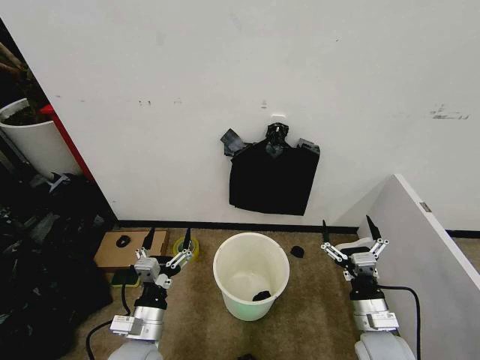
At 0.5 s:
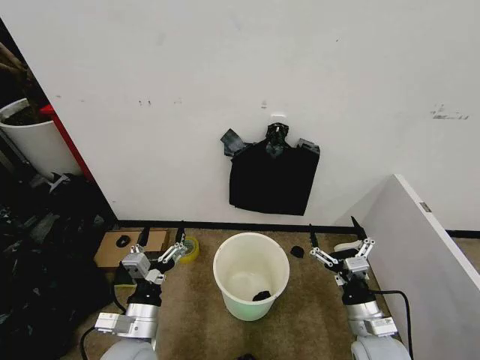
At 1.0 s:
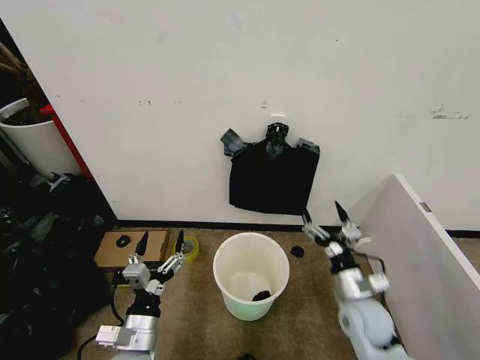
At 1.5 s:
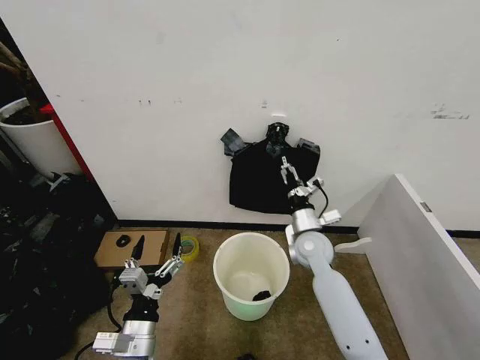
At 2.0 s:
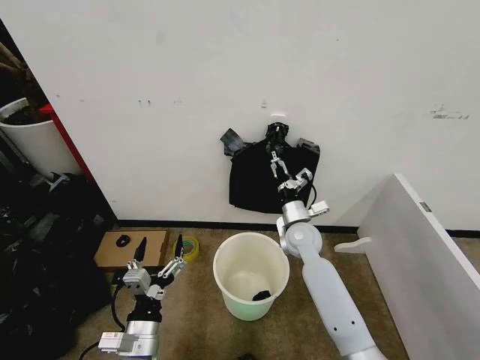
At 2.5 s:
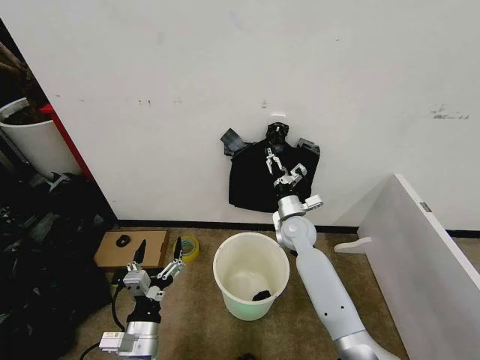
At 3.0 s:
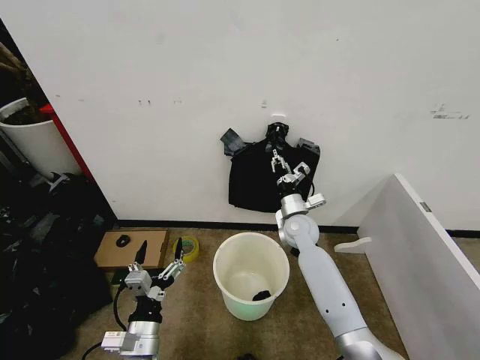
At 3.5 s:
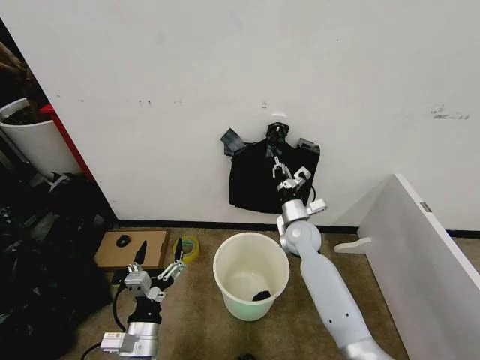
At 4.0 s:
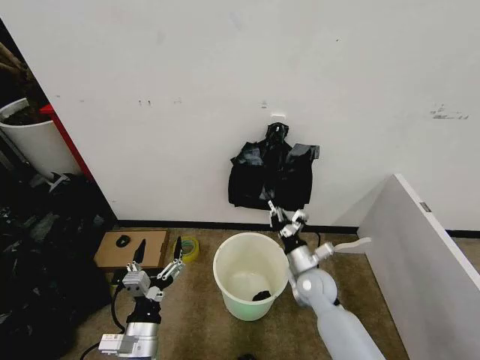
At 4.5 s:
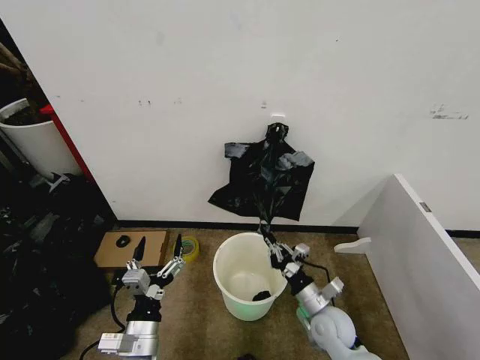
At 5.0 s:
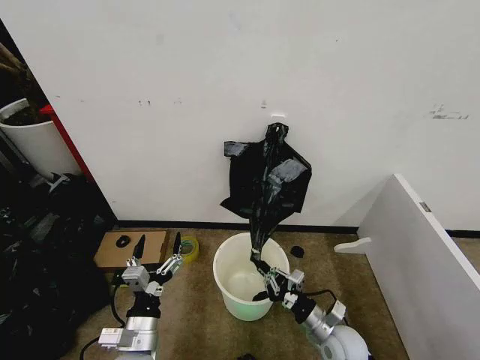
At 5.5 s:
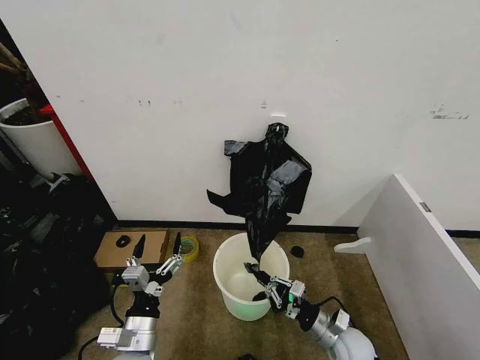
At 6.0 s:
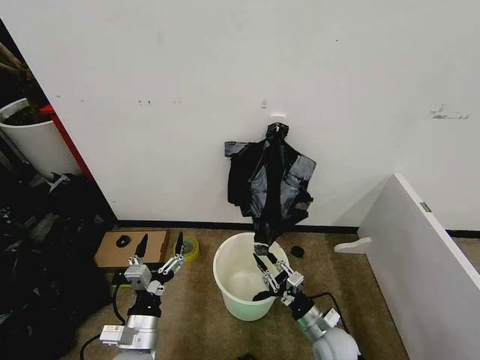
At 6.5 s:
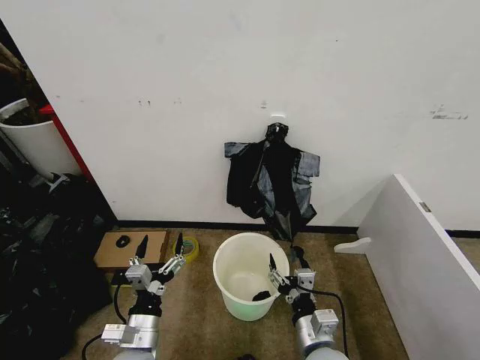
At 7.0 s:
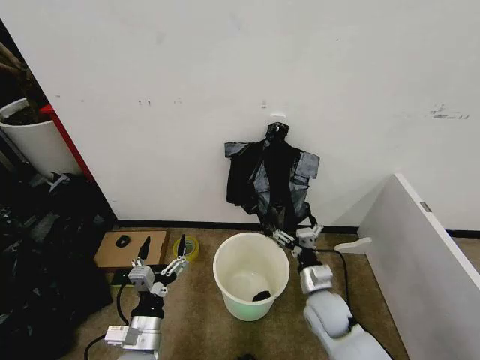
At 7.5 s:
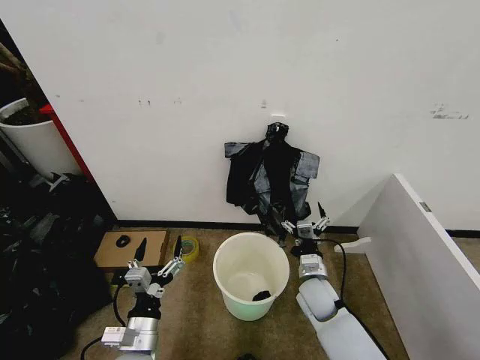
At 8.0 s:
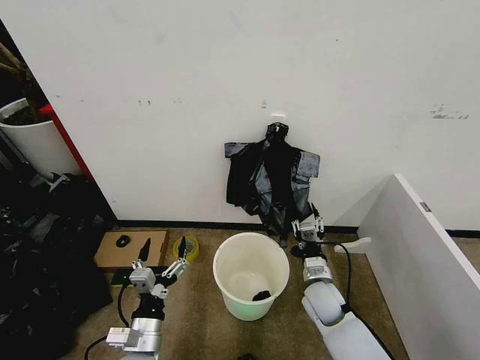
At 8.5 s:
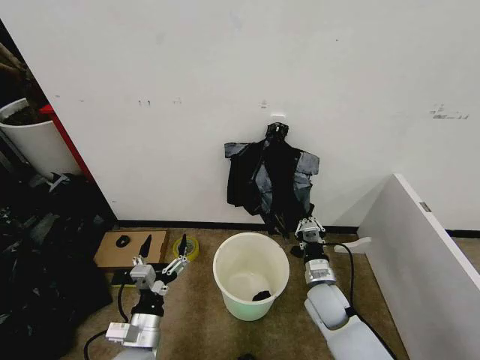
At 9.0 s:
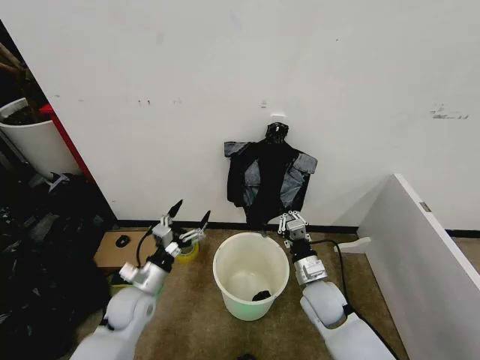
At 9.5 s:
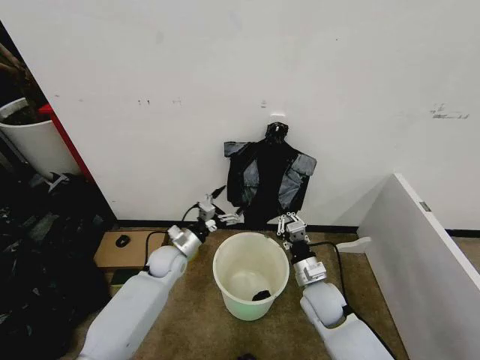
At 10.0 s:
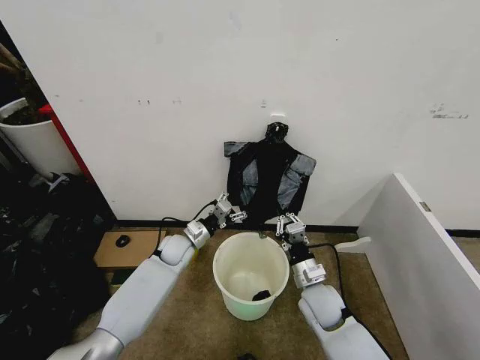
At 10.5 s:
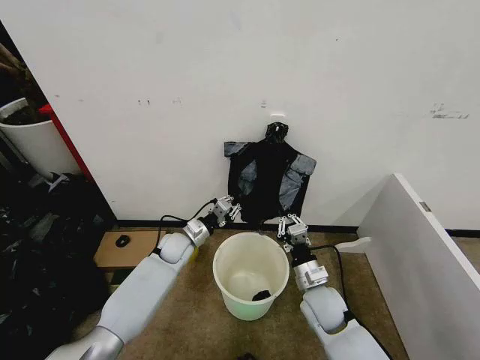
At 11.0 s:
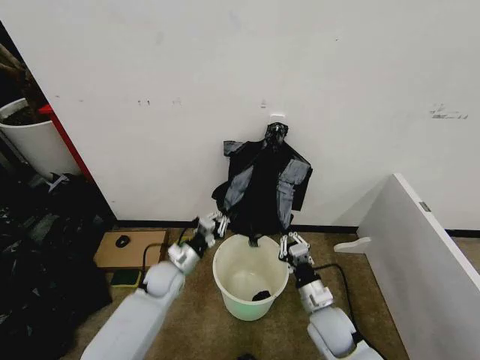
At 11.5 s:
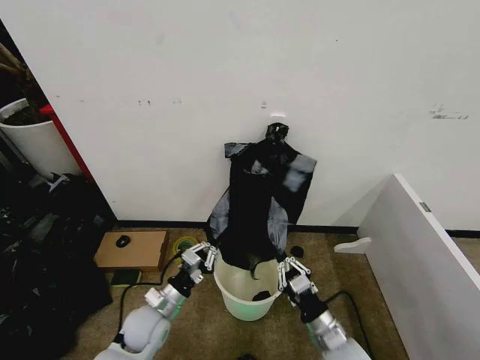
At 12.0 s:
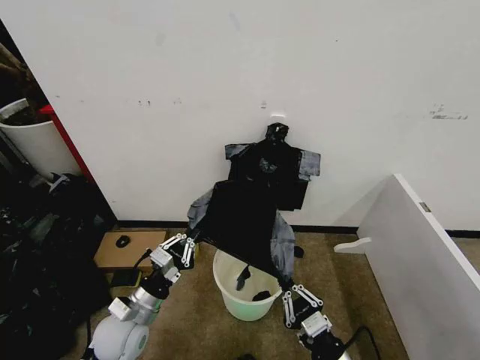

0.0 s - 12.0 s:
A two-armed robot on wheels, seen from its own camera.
Task of the whole recording: Place the garbage bag over the trash bin.
2.0 s - 4.0 s: The right gripper is displaced backward and downward by roughly 10 cm, and closes its fingers.
4.0 s - 6.0 s: The right gripper moves backward and downward, roughly 15 cm.
6.0 s - 8.0 s: The right gripper shifts some 10 cm forward and upward, and opens, then closes once more.
8.0 s - 10.0 s: The right gripper closes. The left gripper heads forward, covering some 30 cm.
10.0 s - 12.0 s: Both grippers move backward, some 20 cm. The left gripper closes up.

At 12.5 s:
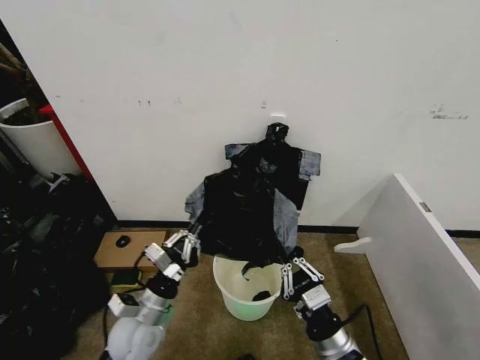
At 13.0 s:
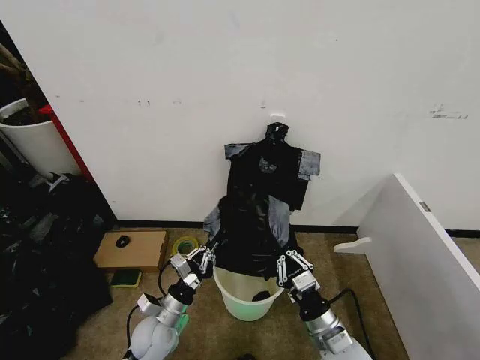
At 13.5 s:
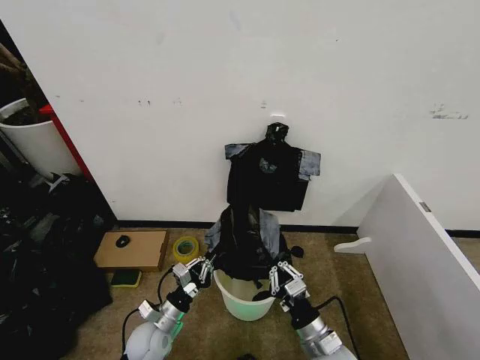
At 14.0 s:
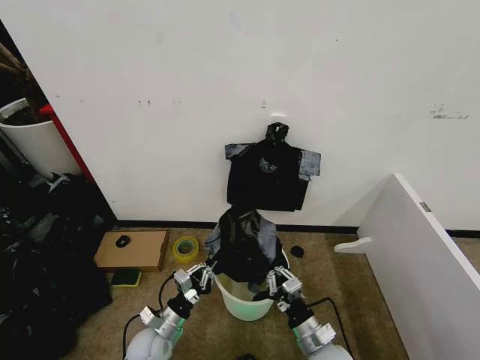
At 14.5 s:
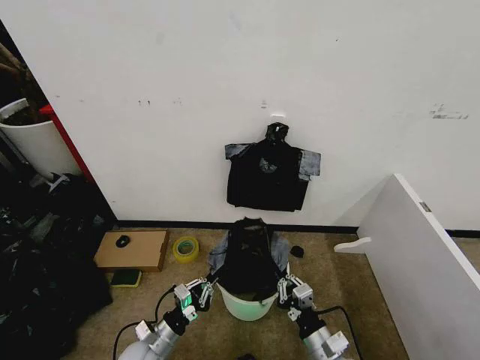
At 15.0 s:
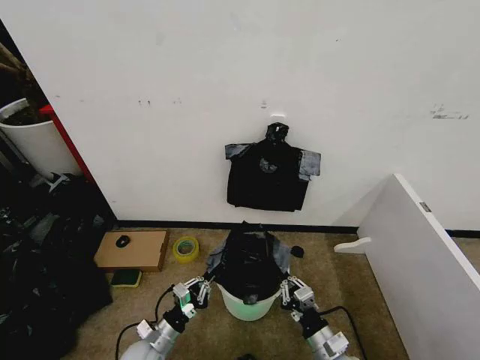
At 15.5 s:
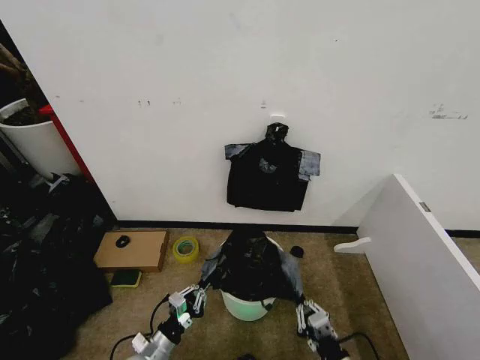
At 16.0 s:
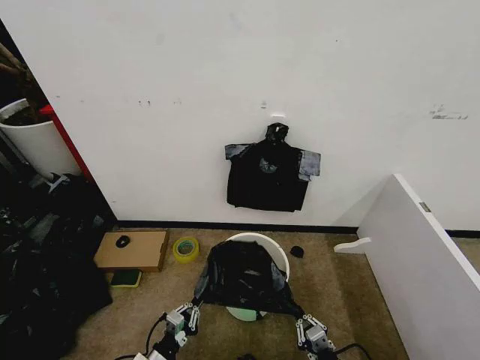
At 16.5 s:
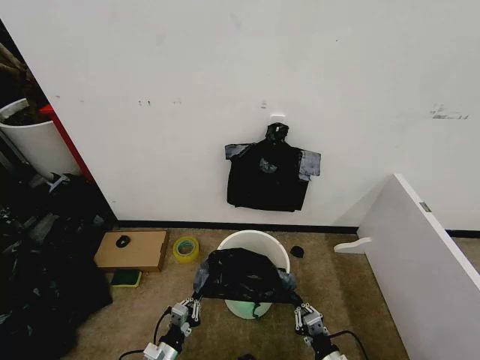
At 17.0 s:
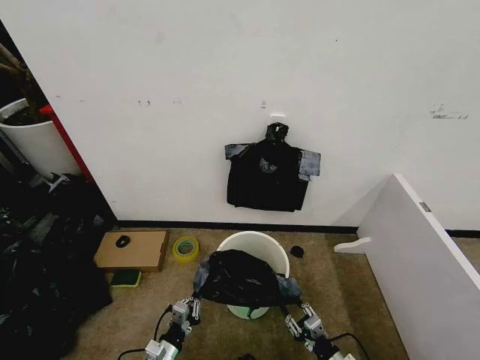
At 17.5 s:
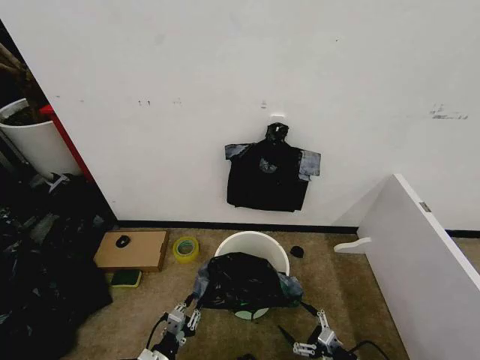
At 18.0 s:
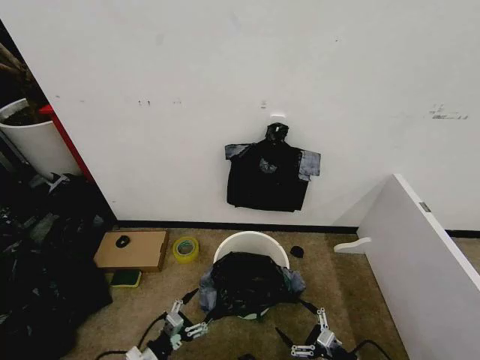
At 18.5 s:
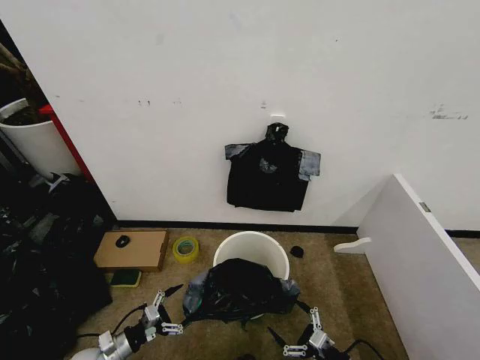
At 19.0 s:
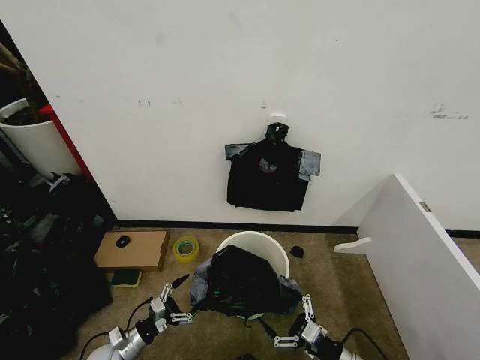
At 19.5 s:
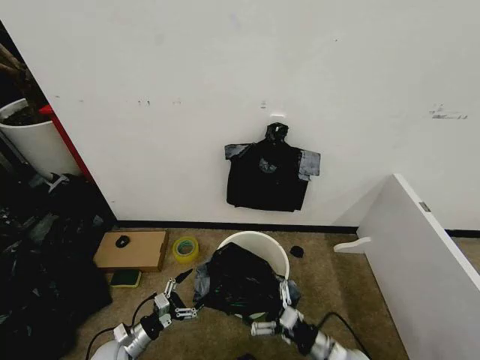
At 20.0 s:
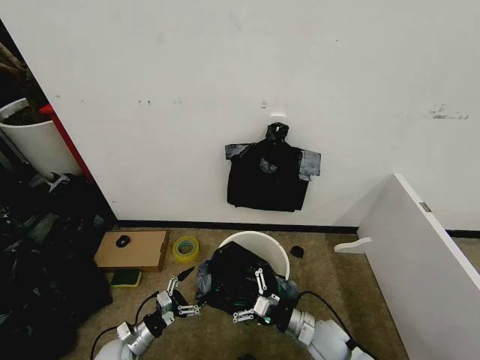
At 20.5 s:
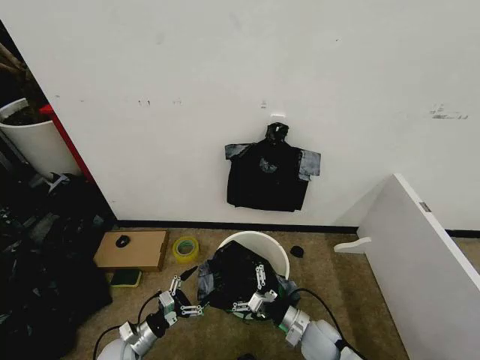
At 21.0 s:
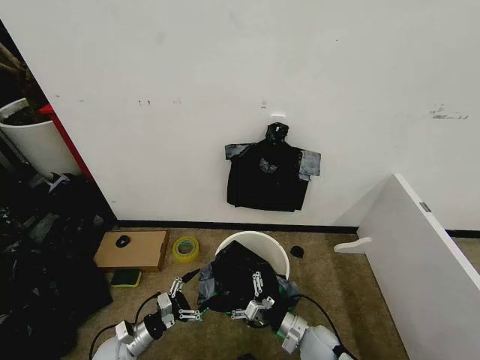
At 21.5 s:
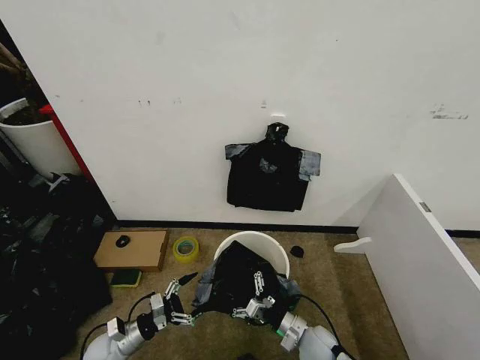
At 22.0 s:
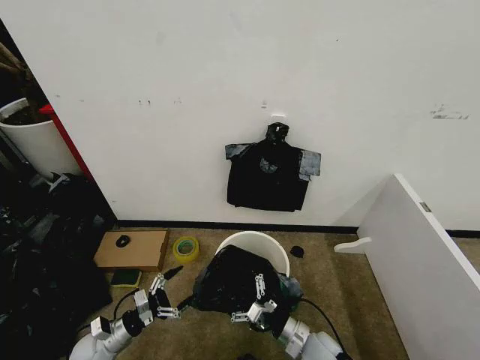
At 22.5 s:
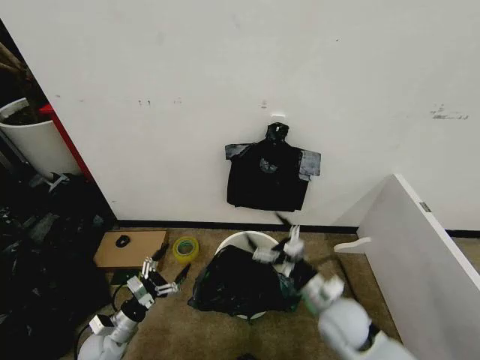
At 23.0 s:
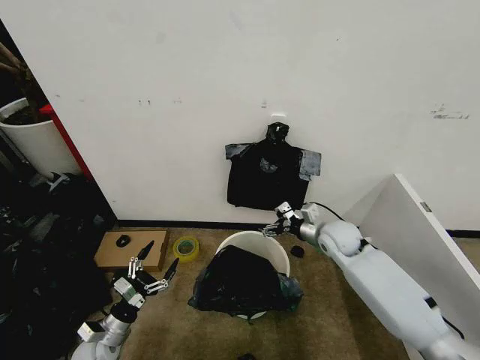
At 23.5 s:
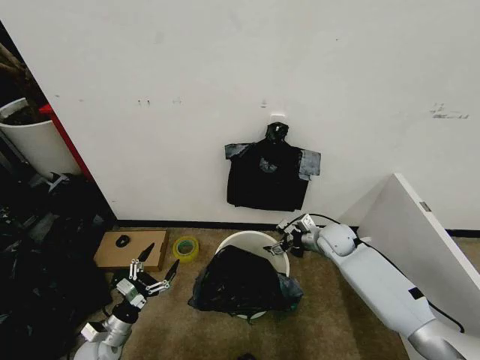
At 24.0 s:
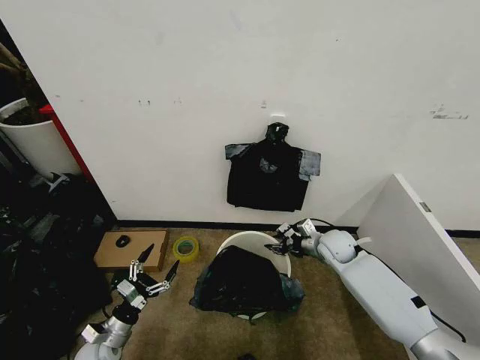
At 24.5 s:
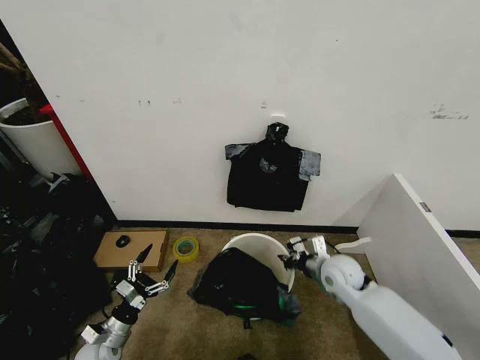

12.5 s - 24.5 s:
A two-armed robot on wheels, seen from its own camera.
Task of the whole recording: Place the garbage bag over the trash bin.
12.5 s - 14.5 s: The left gripper shifts some 15 cm downward; the right gripper travels downward by roughly 10 cm.
14.5 s - 16.5 s: The left gripper heads downward and backward, covering approximately 10 cm, while the right gripper is displaced downward and to the right by roughly 10 cm.
16.5 s - 18.5 s: The left gripper is displaced to the left by about 15 cm, and opens, while the right gripper ends up approximately 5 cm from where it was, and opens up.
18.5 s - 20.5 s: The left gripper travels to the right by approximately 5 cm, while the right gripper is displaced to the left and forward by roughly 15 cm.
20.5 s - 22.5 s: The left gripper moves some 5 cm; the right gripper shifts roughly 10 cm upward.
22.5 s - 24.5 s: The right gripper shifts approximately 10 cm forward, and closes up.

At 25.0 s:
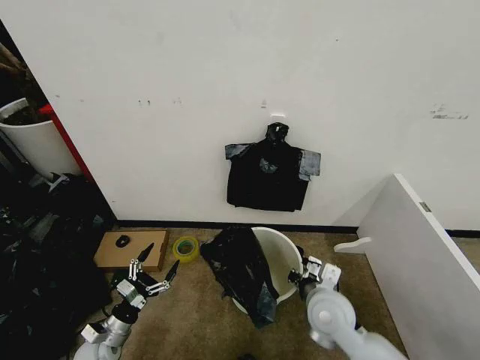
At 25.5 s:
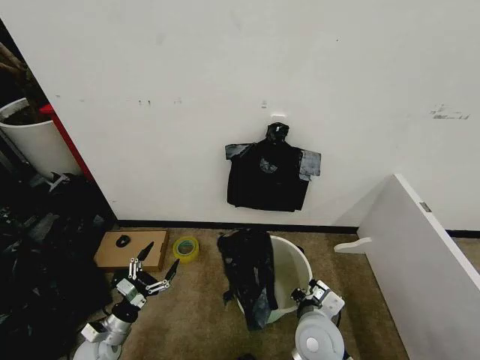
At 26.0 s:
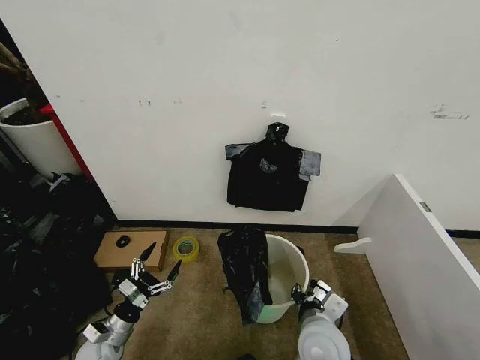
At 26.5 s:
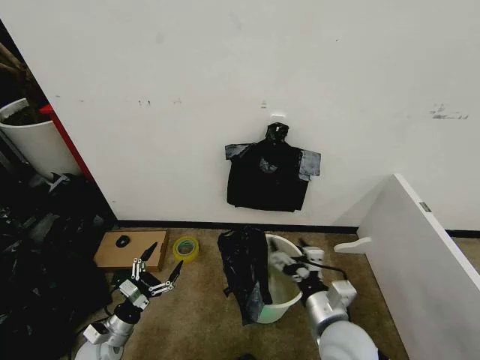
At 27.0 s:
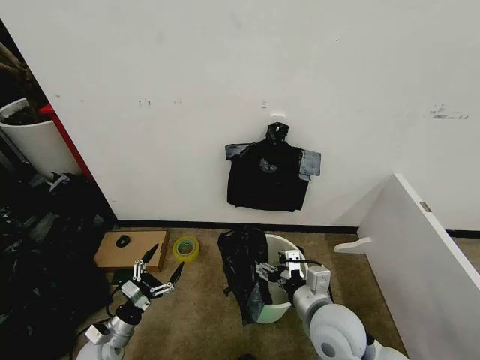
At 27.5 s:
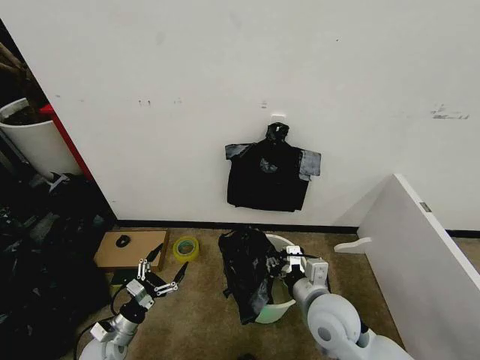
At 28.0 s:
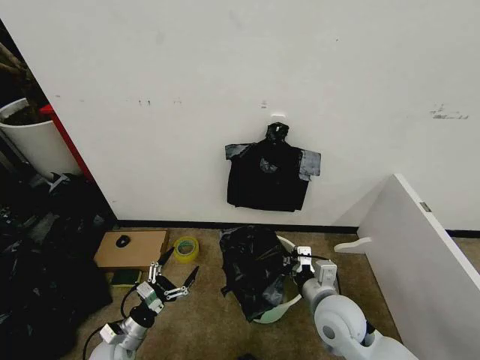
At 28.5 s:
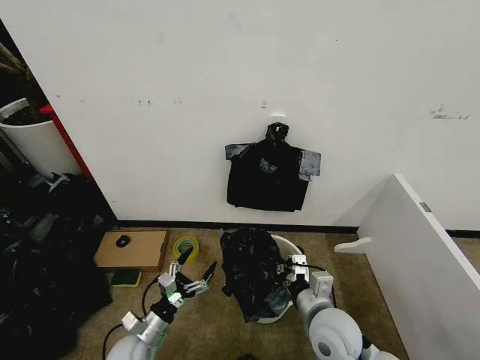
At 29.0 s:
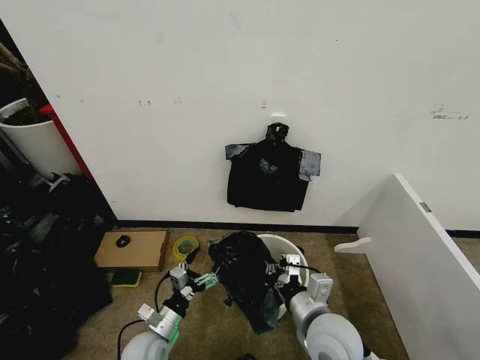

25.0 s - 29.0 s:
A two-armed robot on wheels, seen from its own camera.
Task of the whole recording: Place the garbage bag over the trash bin.
25.0 s - 27.0 s: The right gripper changes place by approximately 5 cm, and opens.
27.0 s - 29.0 s: The left gripper moves to the right, about 15 cm, while the right gripper closes up.
